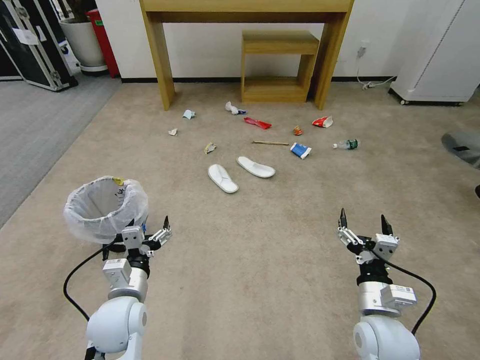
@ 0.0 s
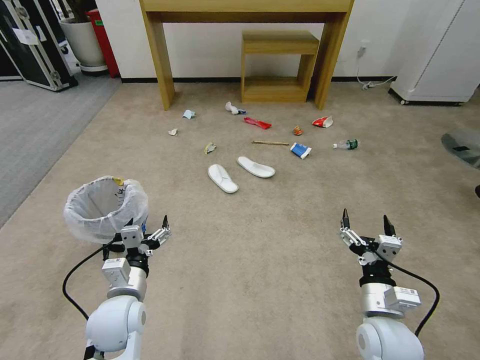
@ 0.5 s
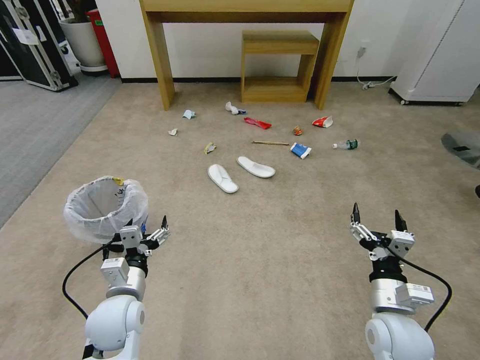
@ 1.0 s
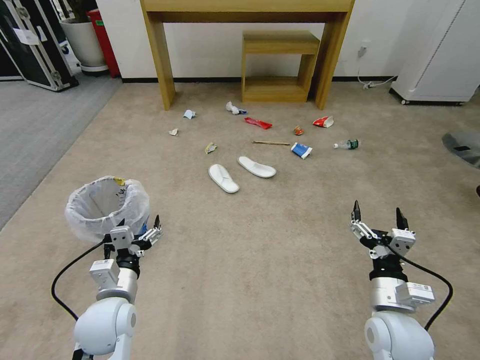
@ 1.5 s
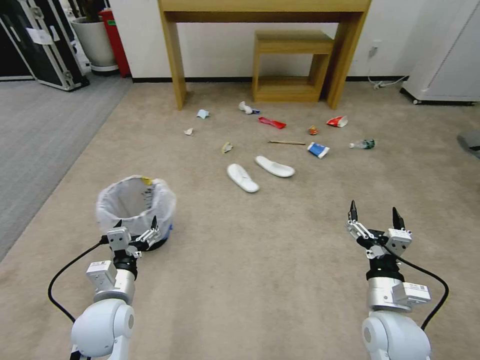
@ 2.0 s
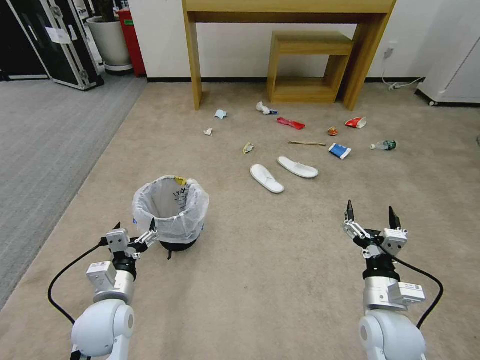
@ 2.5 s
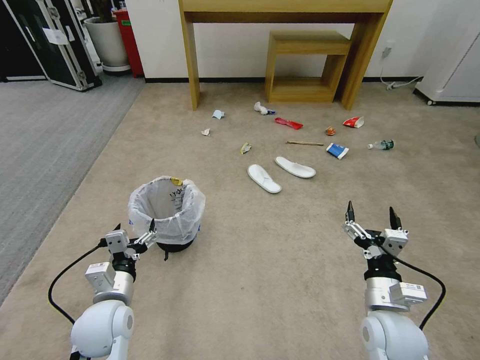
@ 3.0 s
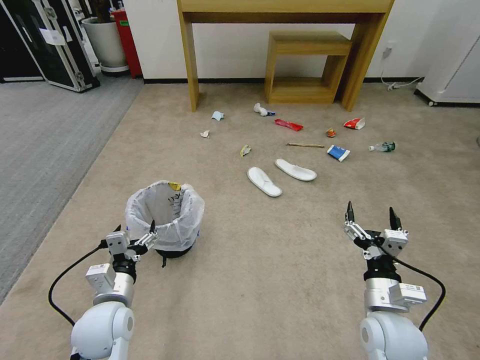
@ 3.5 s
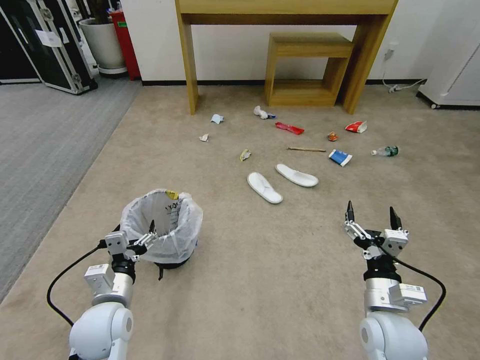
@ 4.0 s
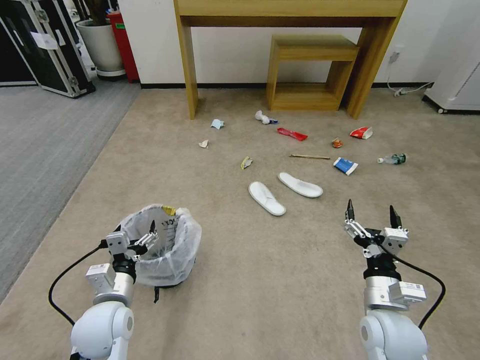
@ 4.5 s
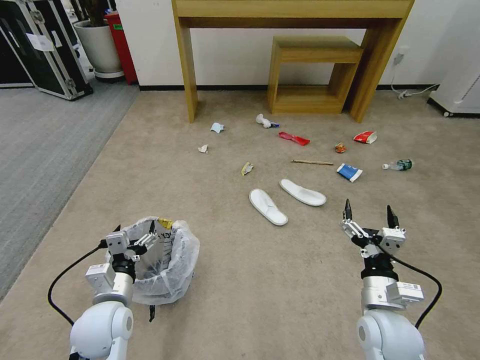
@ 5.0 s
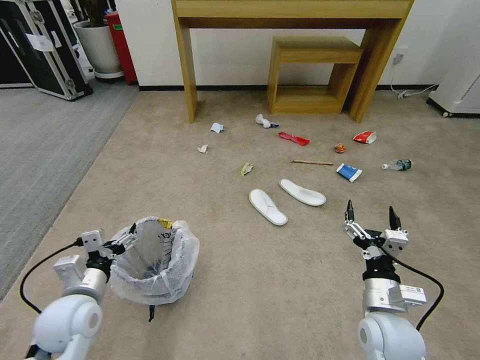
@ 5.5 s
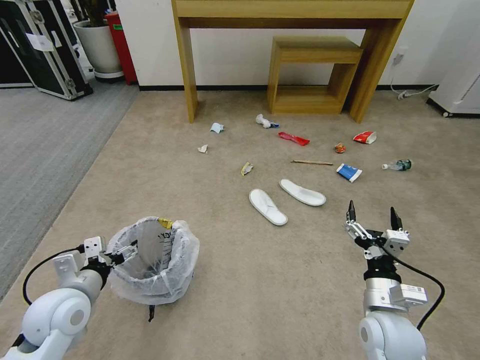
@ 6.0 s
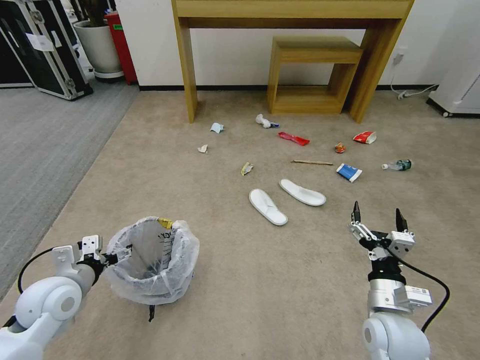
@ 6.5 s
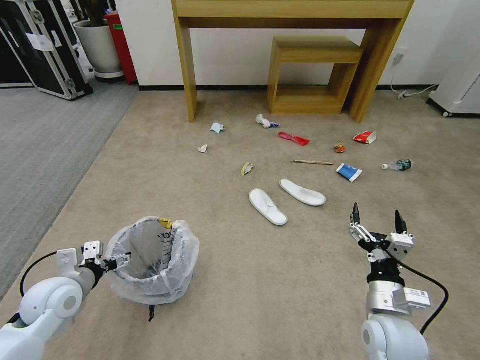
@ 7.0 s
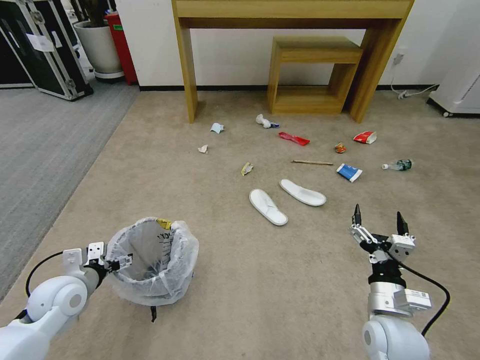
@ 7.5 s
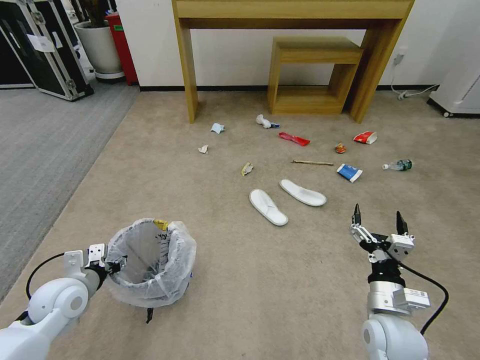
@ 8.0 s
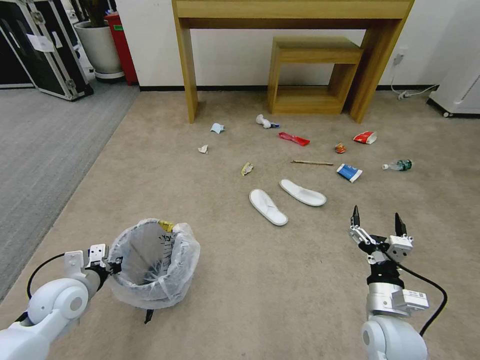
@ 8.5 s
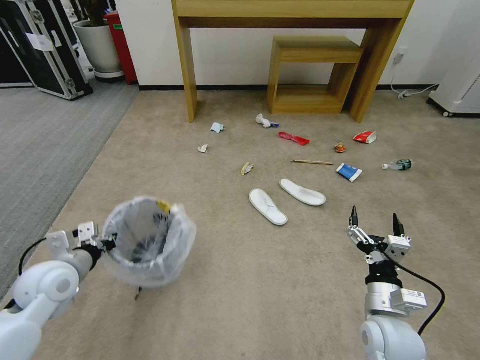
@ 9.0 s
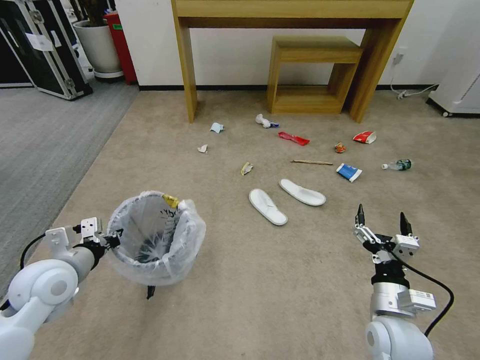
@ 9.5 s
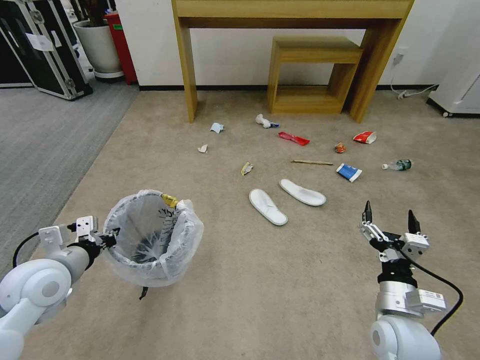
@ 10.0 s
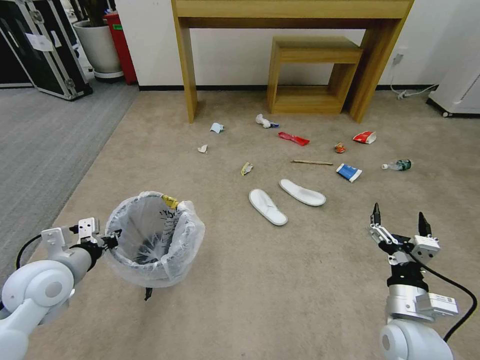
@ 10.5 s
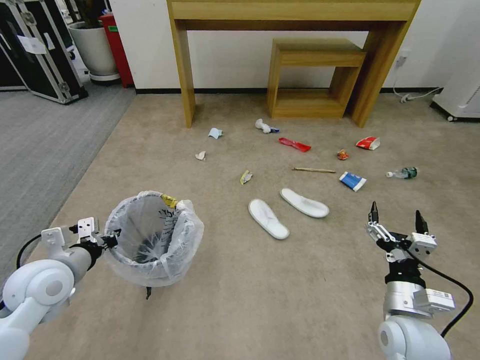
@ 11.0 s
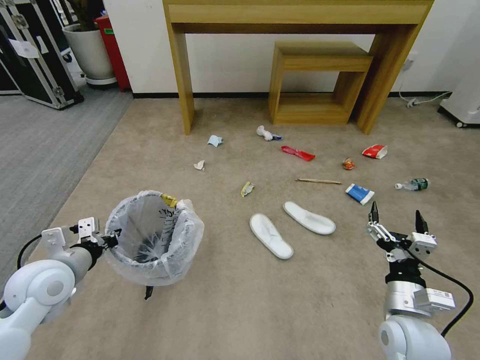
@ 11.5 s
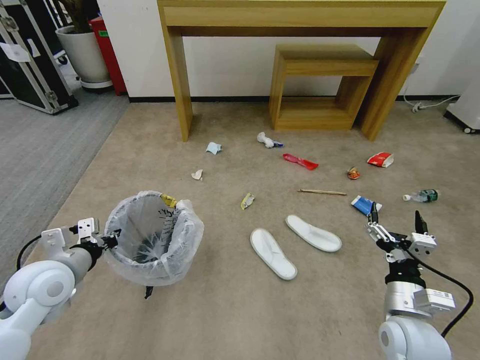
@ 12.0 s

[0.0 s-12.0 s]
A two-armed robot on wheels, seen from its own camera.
Task of the whole recording: Pick up the trash bin and place the garbage on the floor into it.
4.0 to 6.0 s: The left gripper travels to the left by roughly 5 cm.
6.0 to 8.0 s: The left gripper moves roughly 5 cm, and closes its fingers.
8.0 to 10.0 s: The left gripper goes roughly 10 cm upward, and closes its fingers.

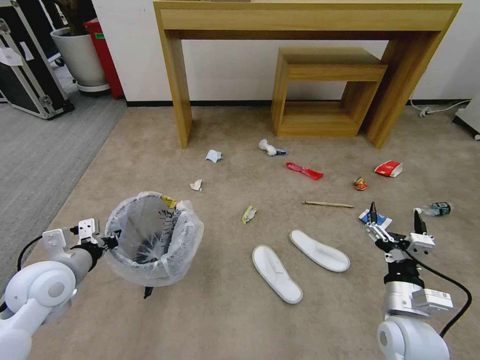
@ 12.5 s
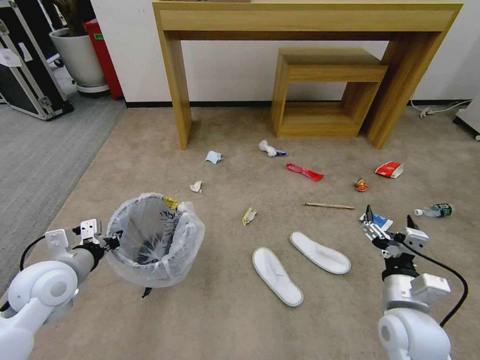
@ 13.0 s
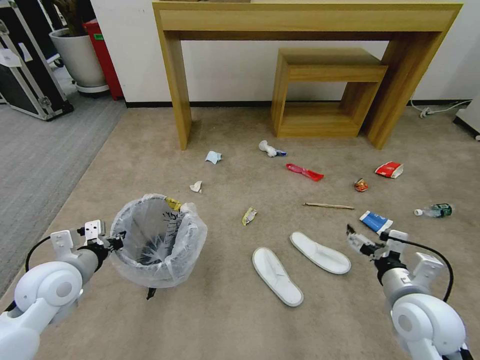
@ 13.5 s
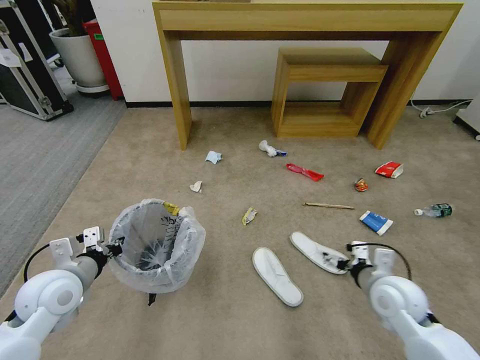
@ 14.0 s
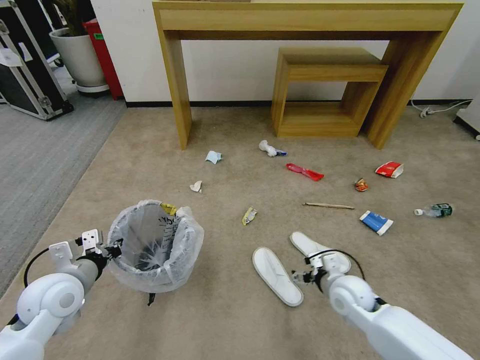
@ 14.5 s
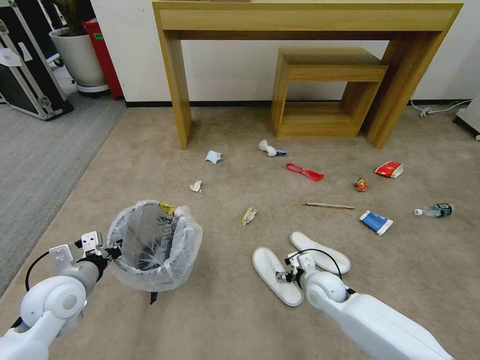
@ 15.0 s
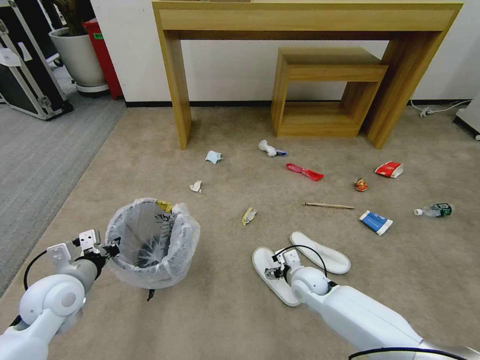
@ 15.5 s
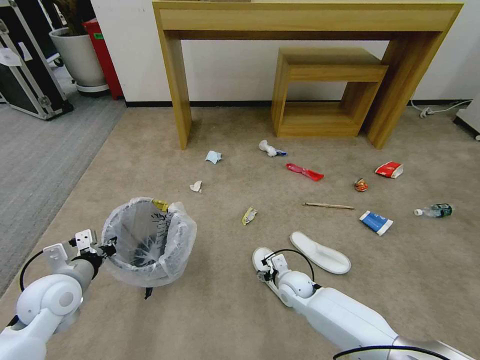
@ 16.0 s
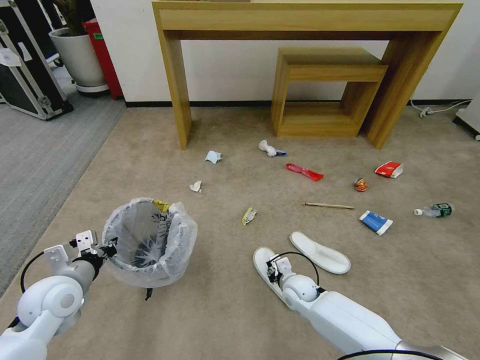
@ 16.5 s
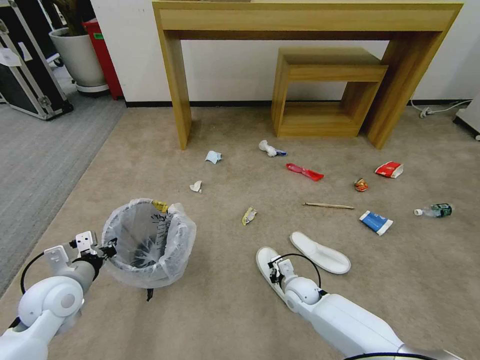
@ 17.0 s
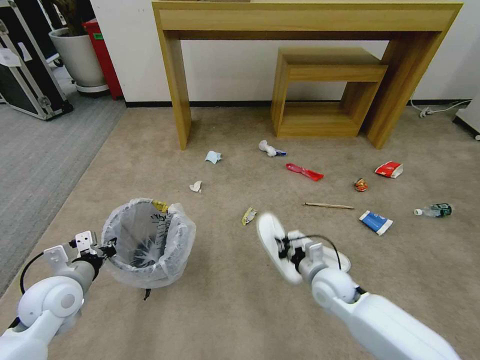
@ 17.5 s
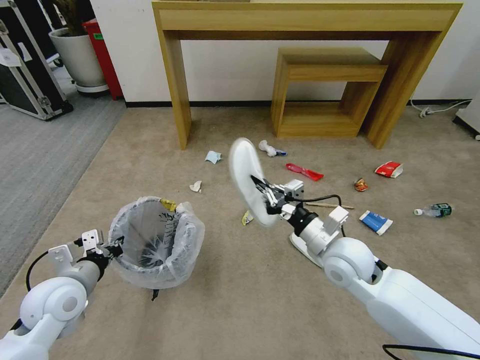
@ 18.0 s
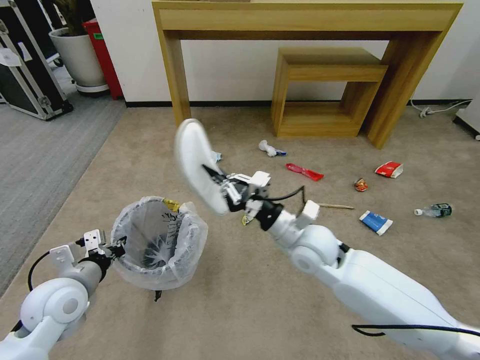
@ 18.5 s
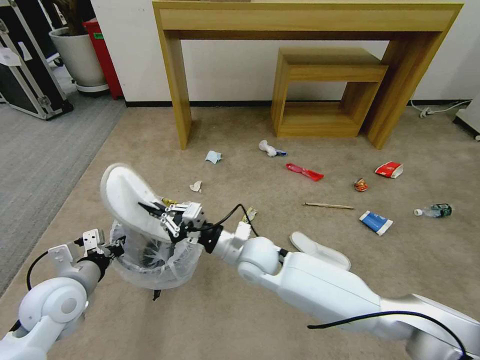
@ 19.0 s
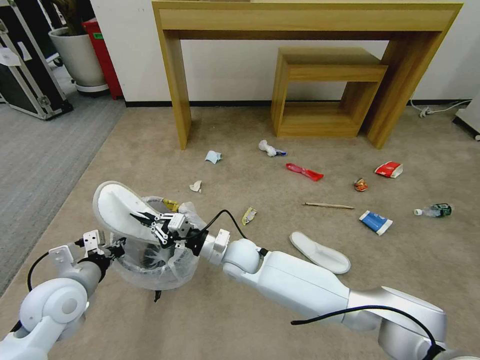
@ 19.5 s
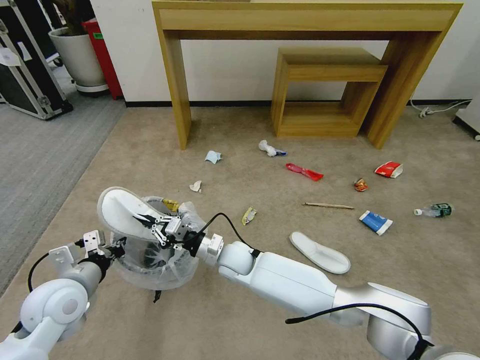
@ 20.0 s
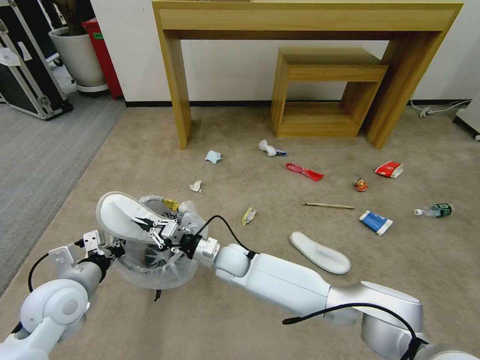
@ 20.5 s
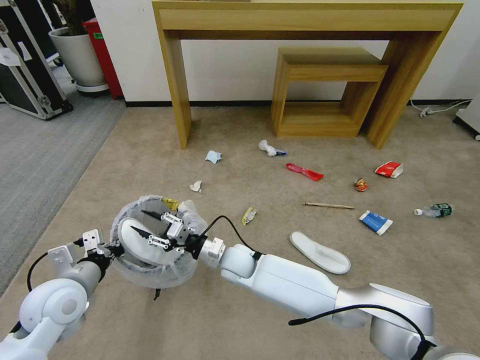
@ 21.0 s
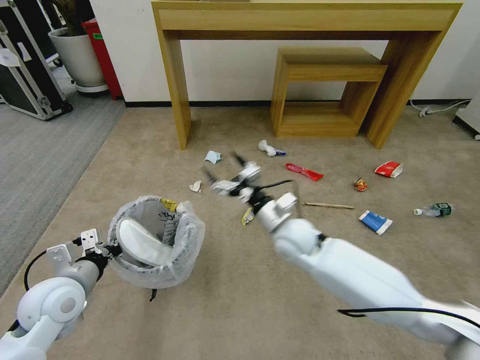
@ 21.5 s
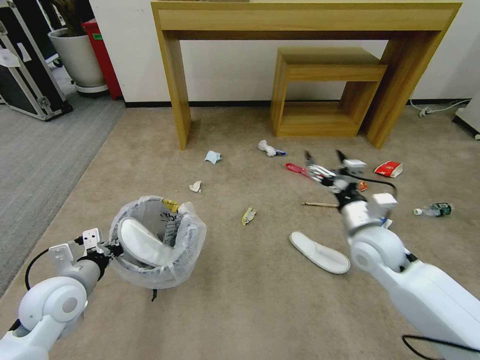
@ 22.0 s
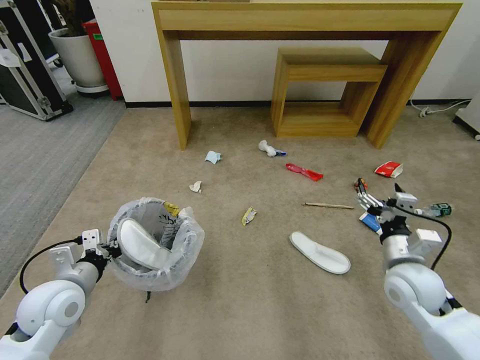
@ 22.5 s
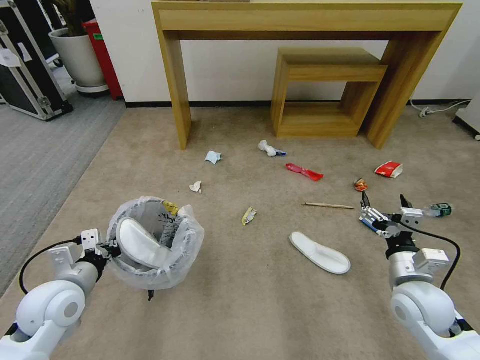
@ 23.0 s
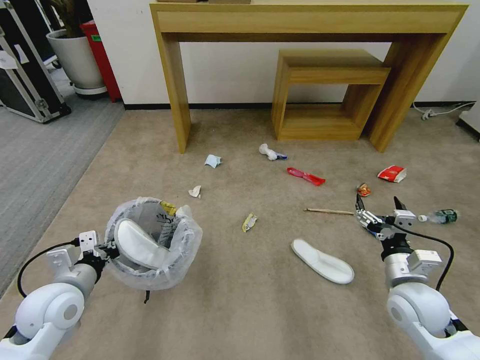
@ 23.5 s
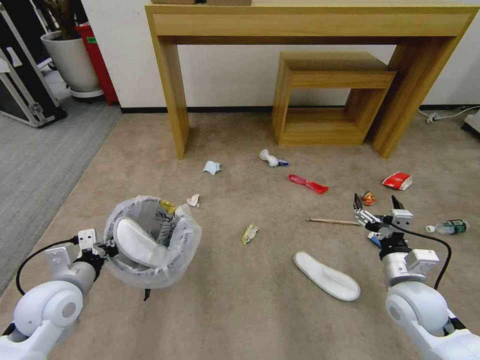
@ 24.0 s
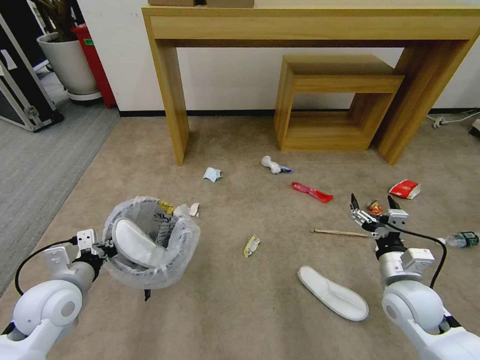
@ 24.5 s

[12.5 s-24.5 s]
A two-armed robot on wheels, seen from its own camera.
Task of the whole recording: Pick up the trash bin and place the garbage on the floor into it.
12.5 to 14.5 s: The right gripper goes roughly 15 cm forward and downward.
14.5 to 16.5 s: The right gripper is displaced downward and to the left by about 15 cm, and closes.
16.5 to 18.5 s: The right gripper shifts approximately 25 cm upward, and closes.
18.5 to 20.5 s: The right gripper moves to the left and downward, some 25 cm.
20.5 to 22.5 s: The right gripper goes about 35 cm to the right, and opens up.

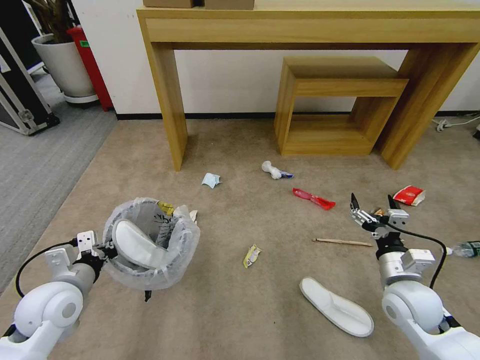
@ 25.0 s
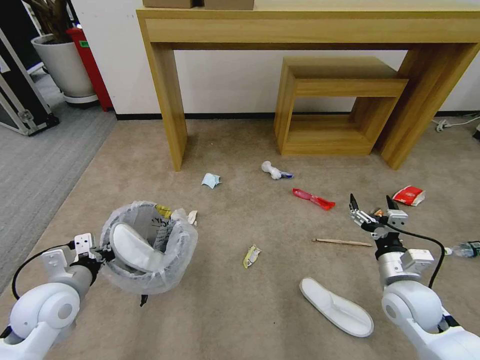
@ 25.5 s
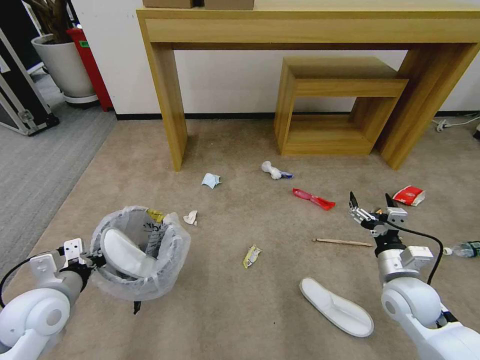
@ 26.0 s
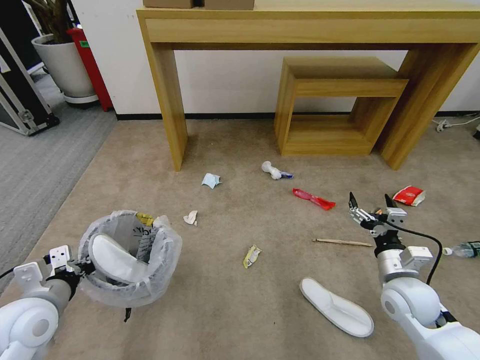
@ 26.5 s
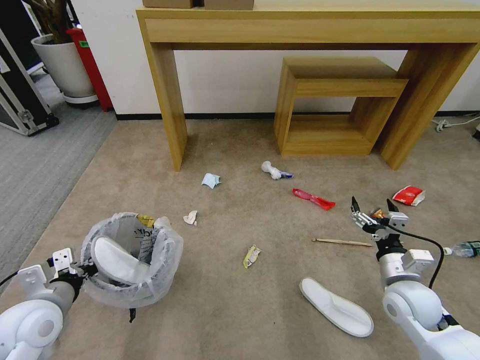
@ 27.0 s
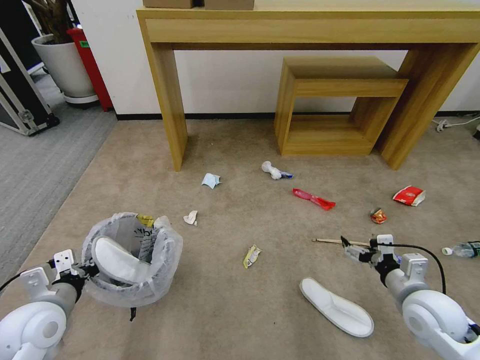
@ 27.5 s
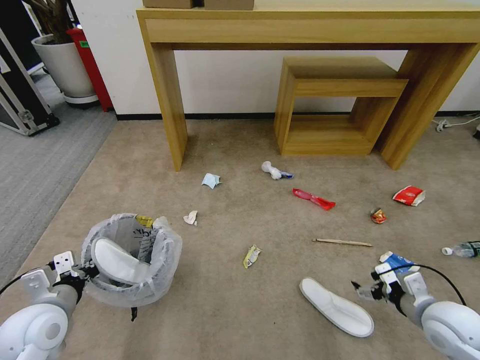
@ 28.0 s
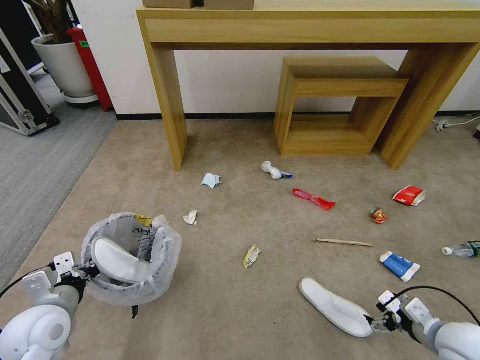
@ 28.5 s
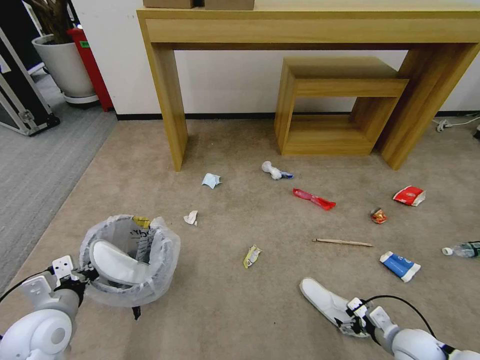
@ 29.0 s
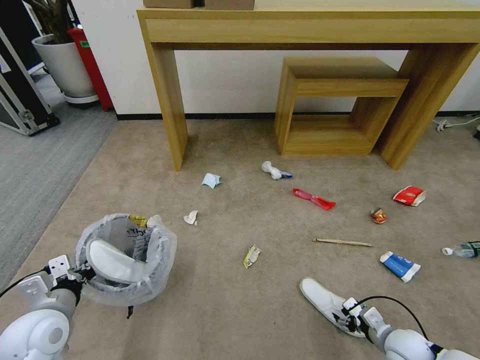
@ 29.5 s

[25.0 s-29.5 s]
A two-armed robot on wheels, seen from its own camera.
Task of the whole recording: Pick up the trash bin and place the garbage on the floor into it.
25.0 to 27.0 s: There are only small adjustments of the grippers.
27.0 to 29.5 s: The right gripper goes approximately 15 cm downward and backward.
